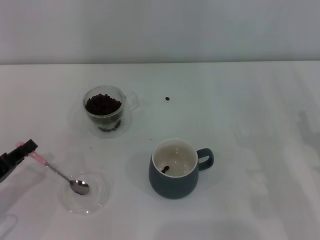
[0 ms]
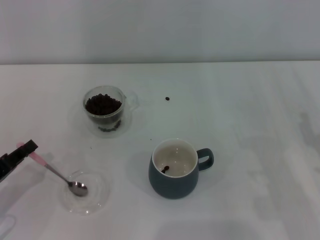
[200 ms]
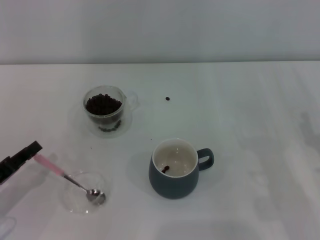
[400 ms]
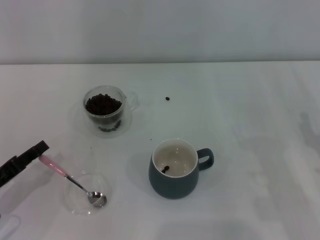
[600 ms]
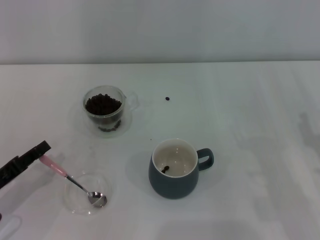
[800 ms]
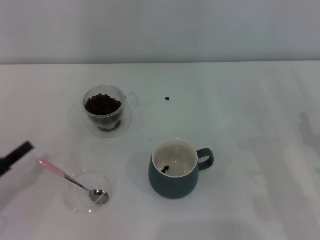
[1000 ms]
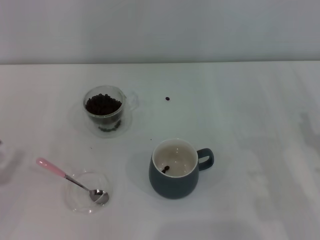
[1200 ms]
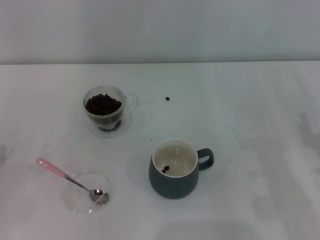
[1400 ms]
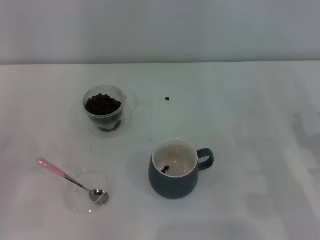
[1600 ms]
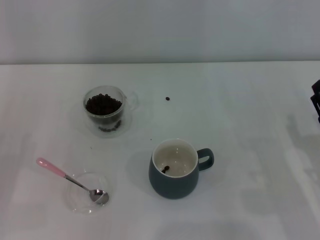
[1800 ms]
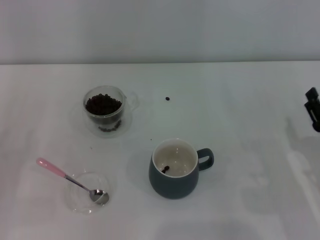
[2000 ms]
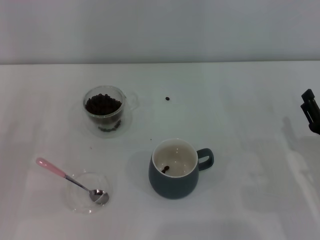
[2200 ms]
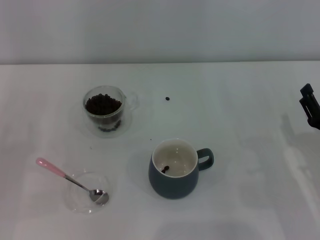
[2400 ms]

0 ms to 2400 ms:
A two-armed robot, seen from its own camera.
Task of the whole recording: Use a pink spoon to take out the coffee beans from the glass and pour them into the gray cup.
0 ms to 1200 ms: The left gripper opens its fingers.
